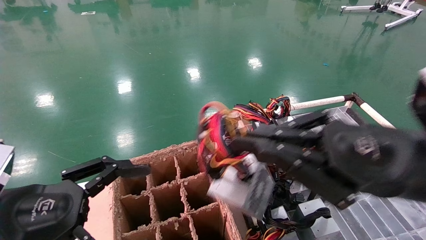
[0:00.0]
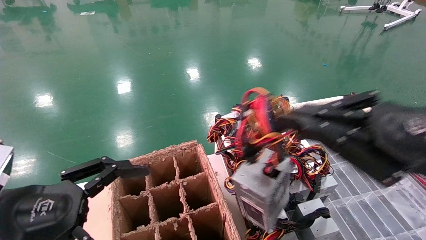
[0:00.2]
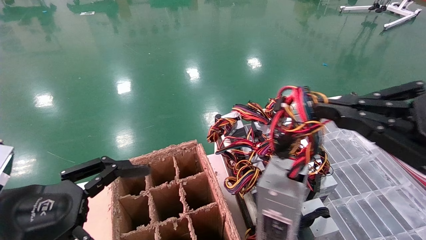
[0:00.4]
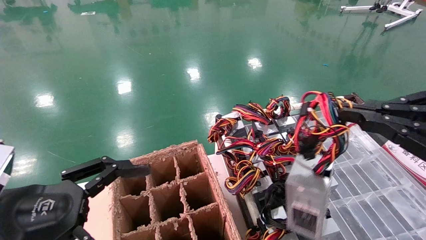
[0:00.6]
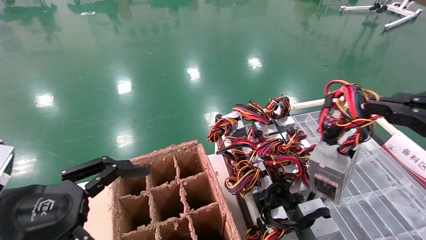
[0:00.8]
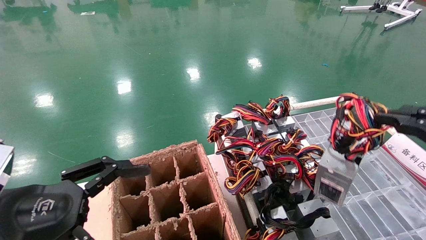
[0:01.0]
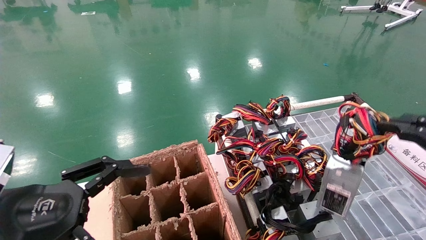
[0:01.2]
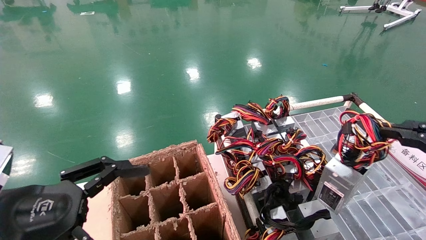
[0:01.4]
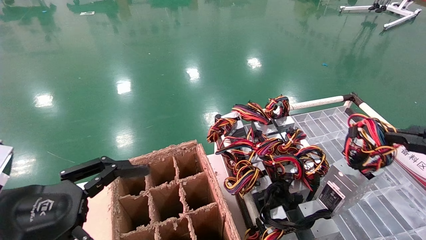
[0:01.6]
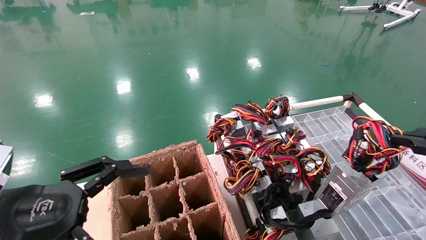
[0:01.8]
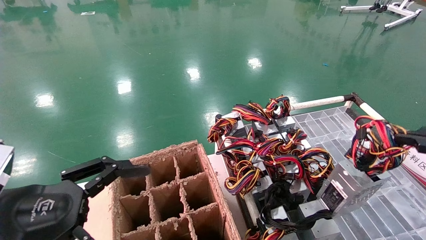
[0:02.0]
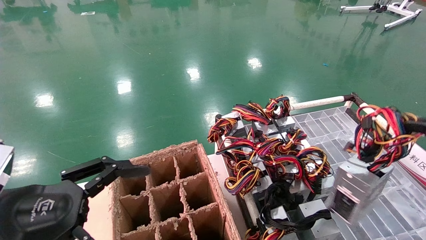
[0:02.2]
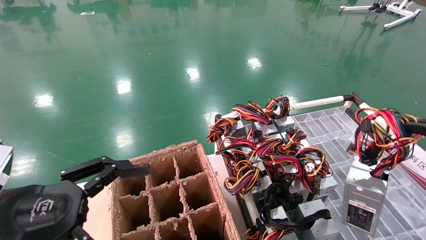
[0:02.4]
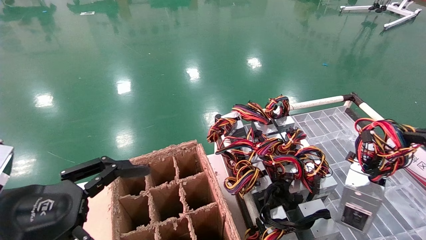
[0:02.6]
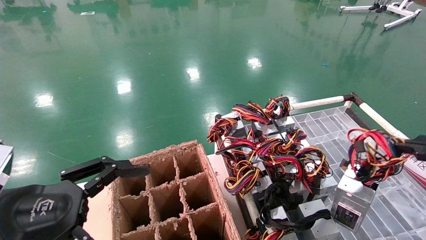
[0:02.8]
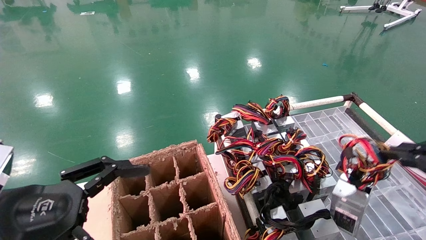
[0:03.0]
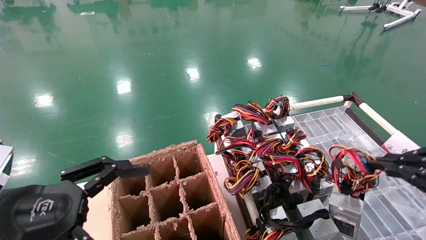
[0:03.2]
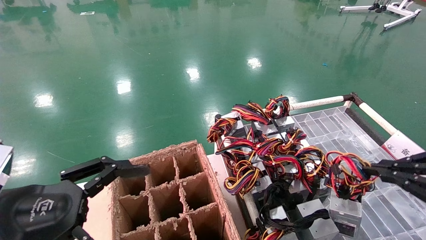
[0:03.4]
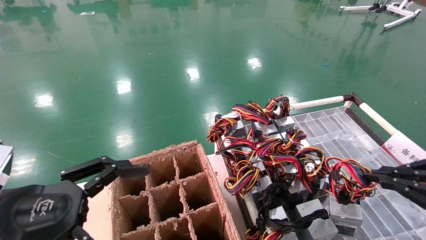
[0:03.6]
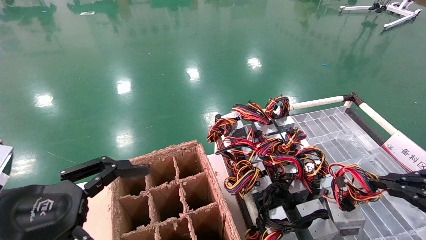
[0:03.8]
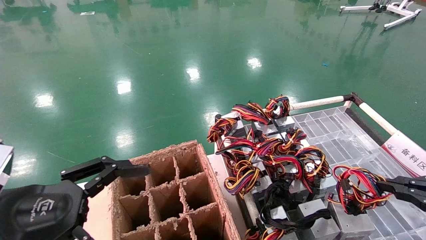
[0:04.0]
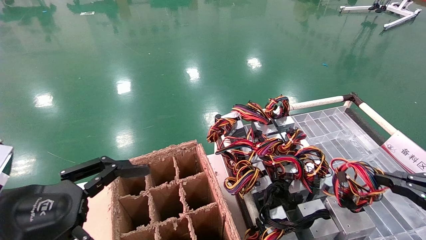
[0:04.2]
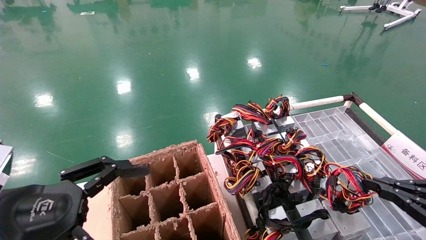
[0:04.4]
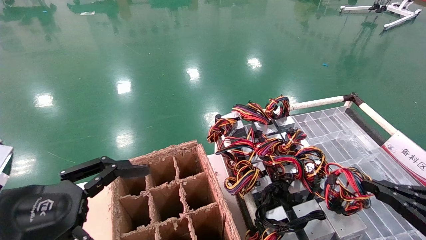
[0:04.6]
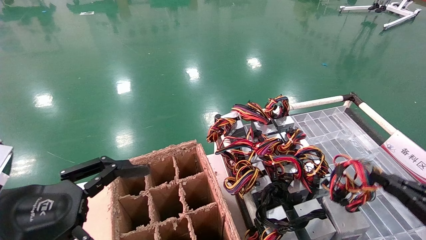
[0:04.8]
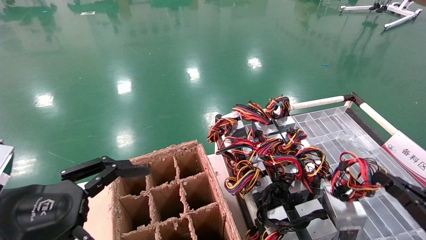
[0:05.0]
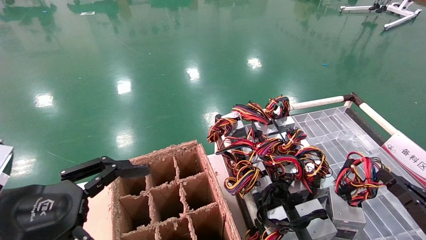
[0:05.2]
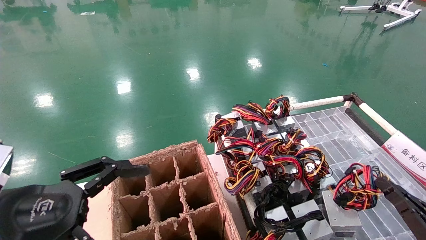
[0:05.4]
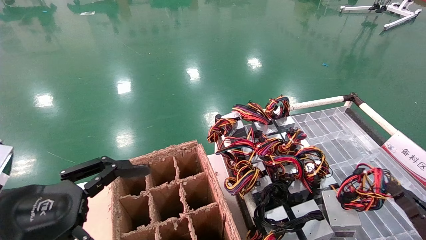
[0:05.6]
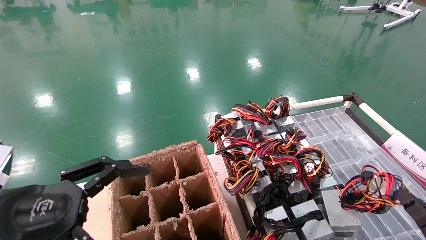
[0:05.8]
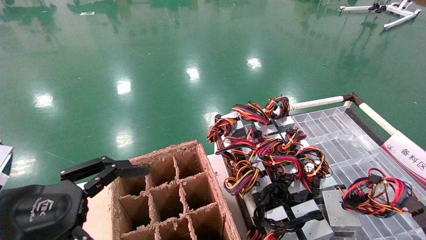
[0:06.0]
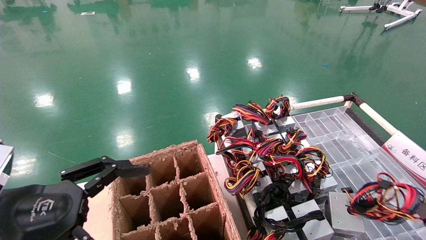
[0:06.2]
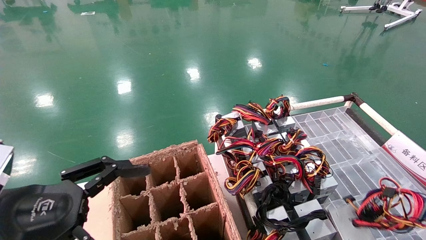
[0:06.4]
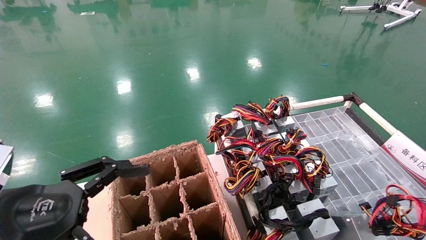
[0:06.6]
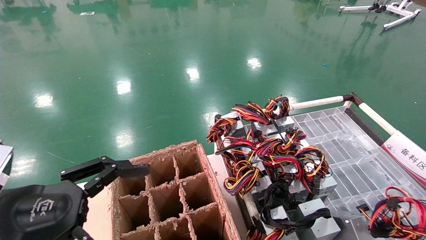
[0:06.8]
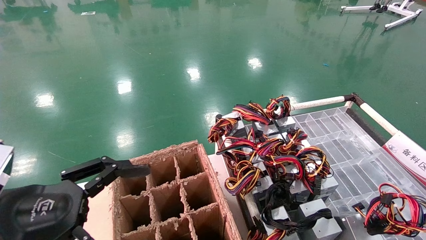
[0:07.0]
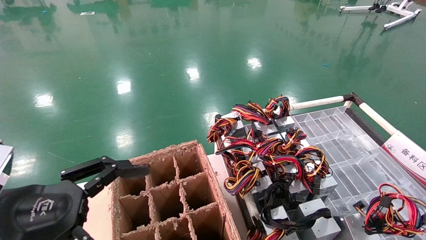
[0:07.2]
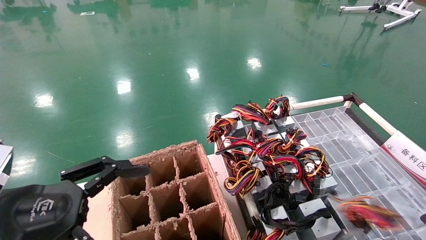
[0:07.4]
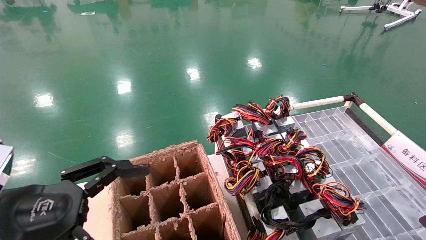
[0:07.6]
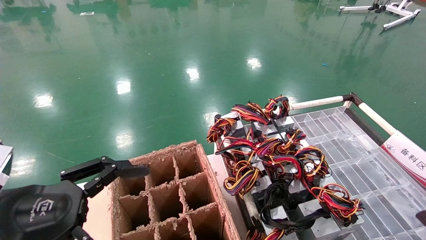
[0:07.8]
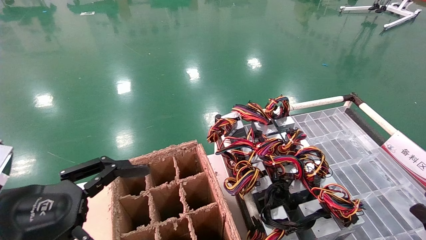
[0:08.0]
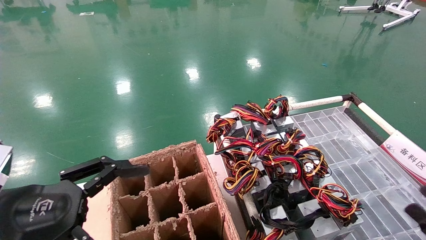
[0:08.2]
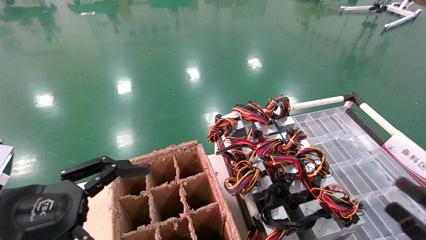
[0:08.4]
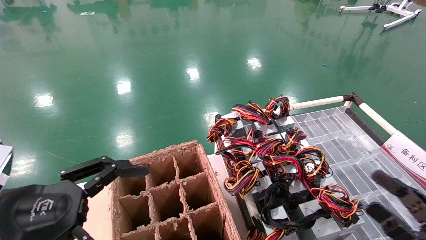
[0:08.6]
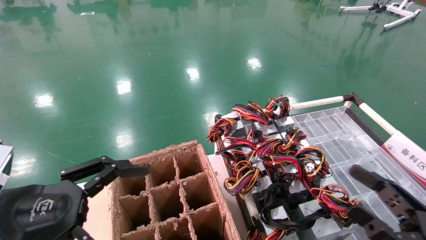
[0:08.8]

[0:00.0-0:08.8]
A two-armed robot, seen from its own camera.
Step, 0:00.0 to 0:07.2: Place the power supply on the operating table.
0:00.0 to 0:01.4: The right gripper travels to the right by approximately 20 cm.
0:01.4 to 0:03.0: The grippers move only a little.
0:03.0 to 0:04.4: The right gripper heads downward, covering approximately 10 cm.
0:04.4 to 0:05.8: The right gripper is displaced downward by approximately 15 cm.
0:05.8 to 0:07.4: The right gripper shifts by roughly 5 cm.
0:07.4 to 0:08.8: The right gripper shifts some 15 cm upward and to the left, and opens its fingers.
